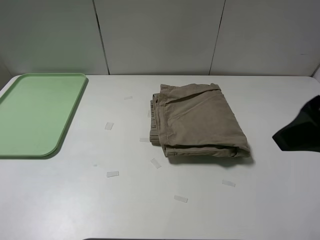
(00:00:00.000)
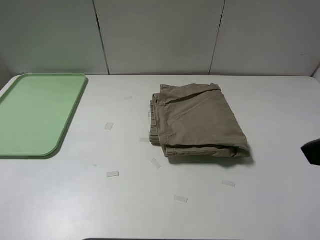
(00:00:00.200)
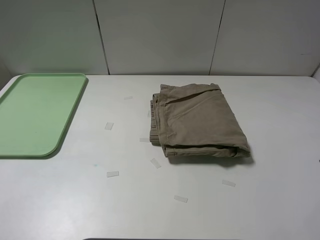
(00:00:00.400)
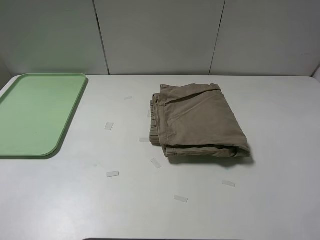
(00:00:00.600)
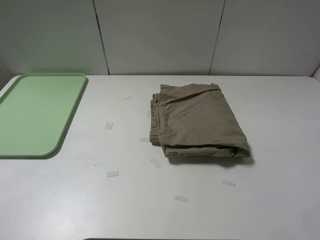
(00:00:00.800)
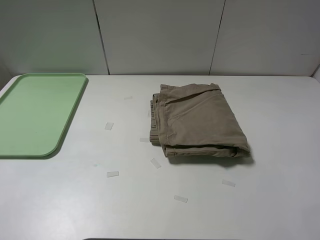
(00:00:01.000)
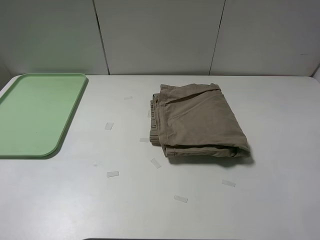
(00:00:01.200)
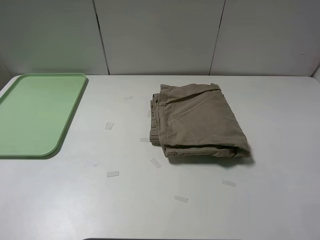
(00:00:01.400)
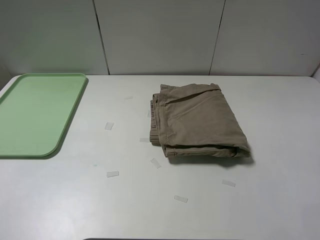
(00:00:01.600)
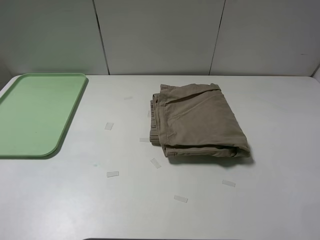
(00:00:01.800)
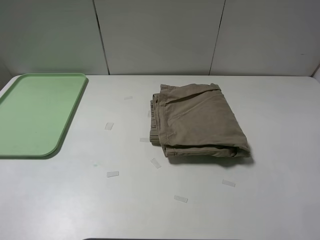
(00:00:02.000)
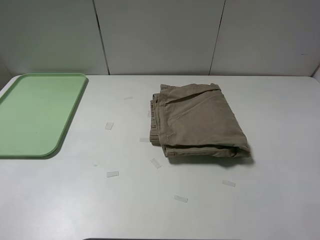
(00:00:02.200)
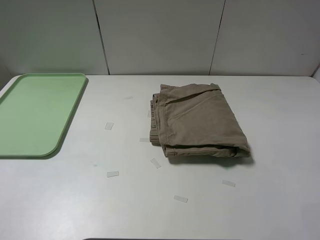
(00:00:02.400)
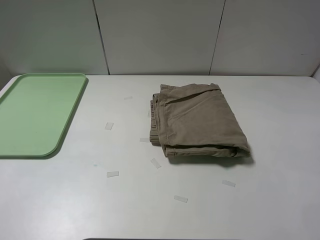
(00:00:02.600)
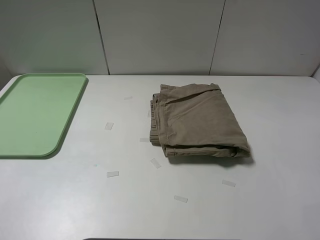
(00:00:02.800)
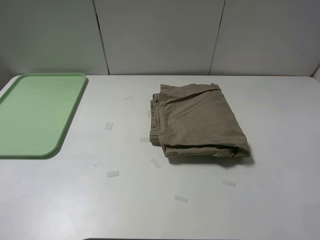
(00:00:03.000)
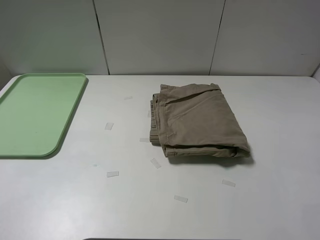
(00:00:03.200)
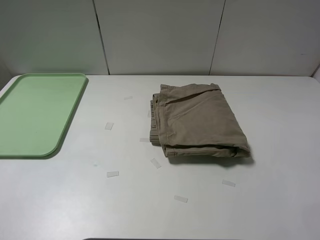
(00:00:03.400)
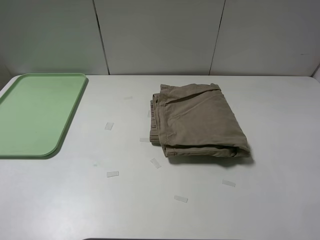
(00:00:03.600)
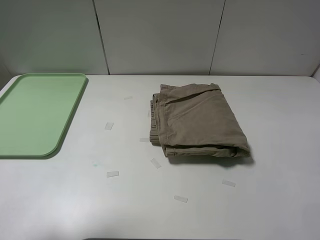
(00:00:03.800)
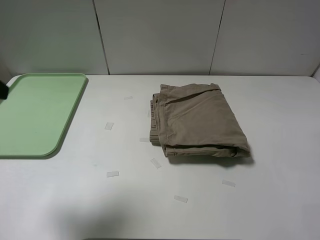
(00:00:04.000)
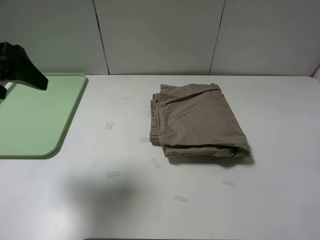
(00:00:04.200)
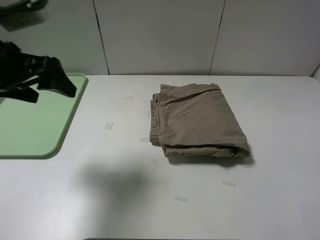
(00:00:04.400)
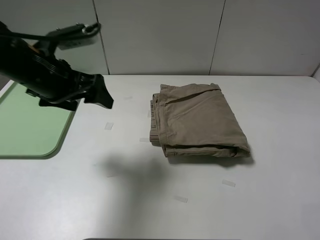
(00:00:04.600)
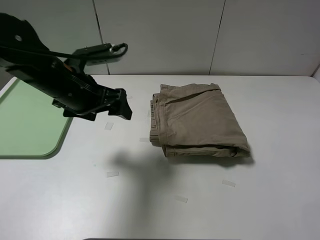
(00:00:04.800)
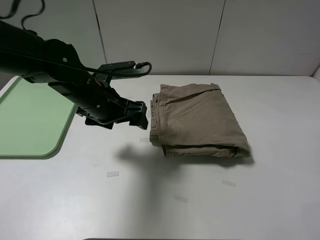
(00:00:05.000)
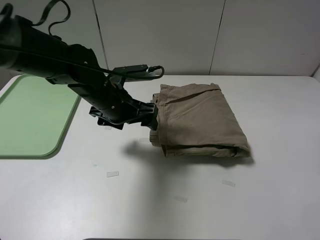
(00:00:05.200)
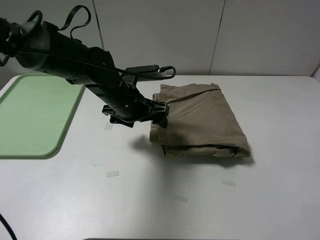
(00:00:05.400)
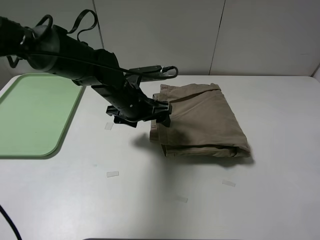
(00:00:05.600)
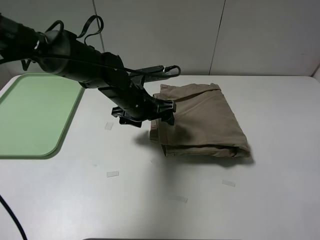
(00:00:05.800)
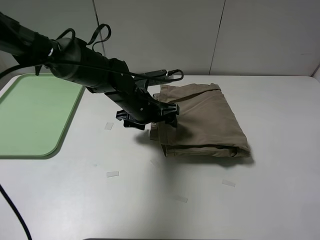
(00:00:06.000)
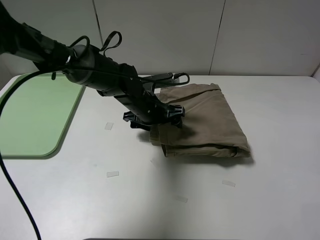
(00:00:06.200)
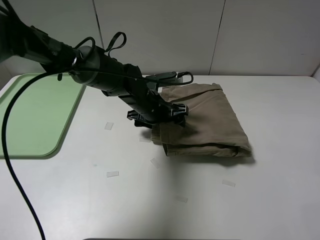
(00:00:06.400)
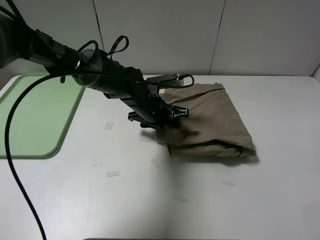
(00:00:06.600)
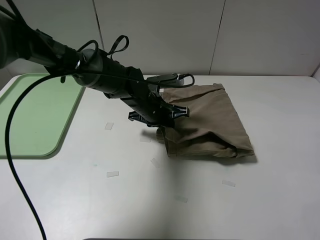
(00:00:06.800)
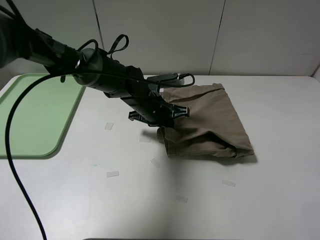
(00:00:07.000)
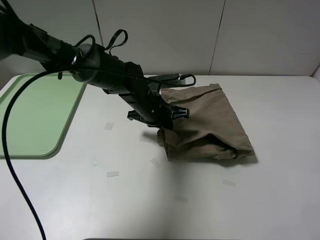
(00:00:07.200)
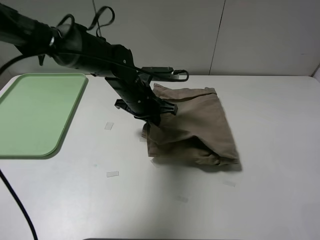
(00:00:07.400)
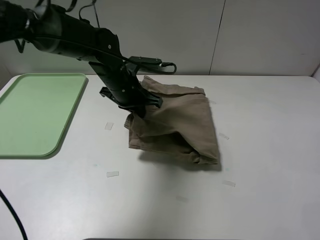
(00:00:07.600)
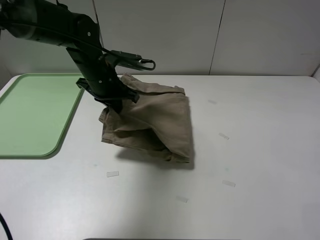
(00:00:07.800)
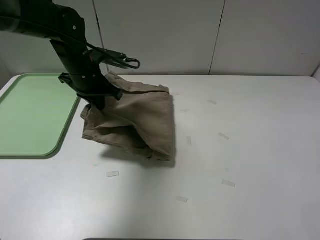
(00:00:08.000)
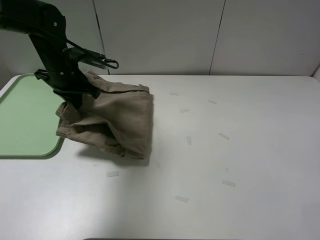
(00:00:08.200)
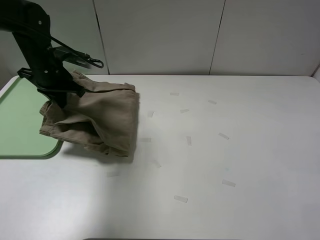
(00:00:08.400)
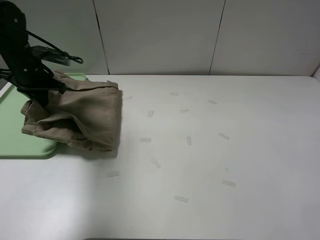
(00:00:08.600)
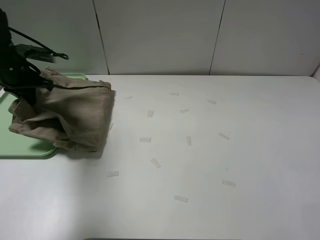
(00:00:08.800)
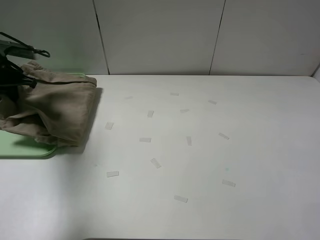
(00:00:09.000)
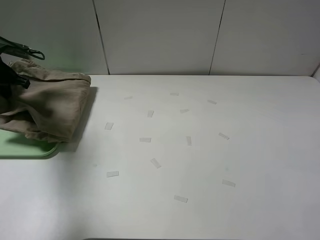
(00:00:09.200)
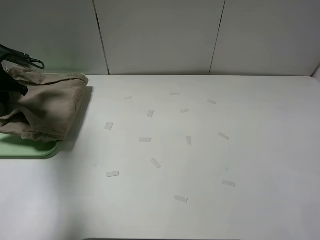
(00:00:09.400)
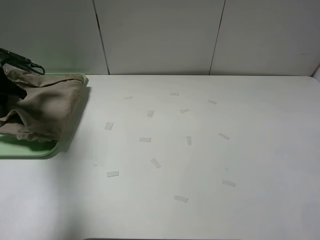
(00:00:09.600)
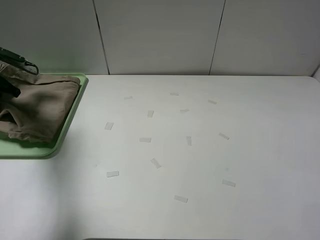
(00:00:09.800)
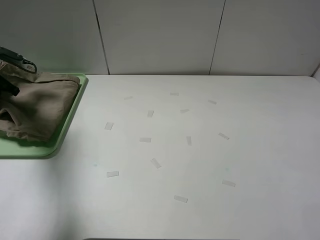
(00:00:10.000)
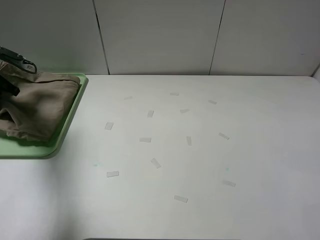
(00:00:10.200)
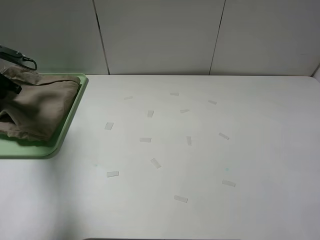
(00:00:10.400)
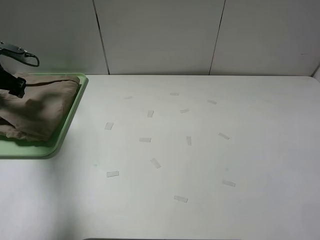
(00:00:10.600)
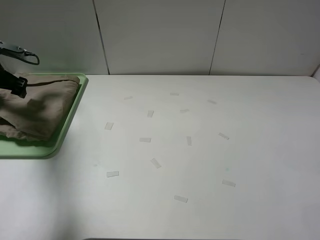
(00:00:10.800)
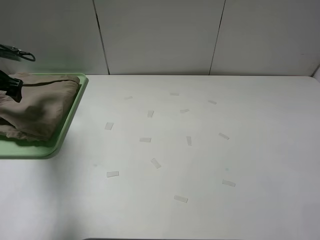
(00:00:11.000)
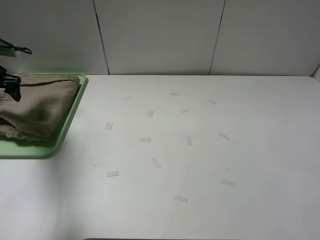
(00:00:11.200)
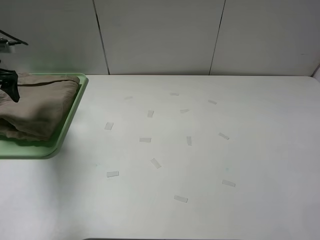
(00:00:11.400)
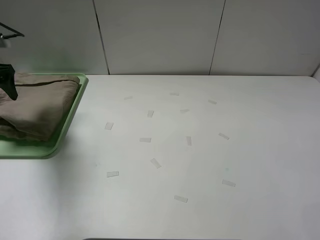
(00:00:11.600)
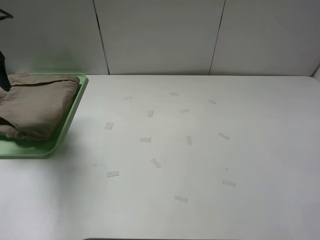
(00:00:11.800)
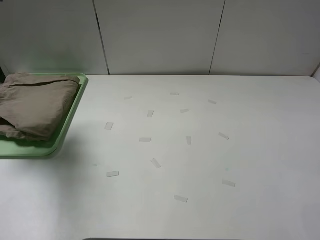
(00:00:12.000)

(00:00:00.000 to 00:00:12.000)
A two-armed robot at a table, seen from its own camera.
Task of the whole recording: fold the khaki jeans in half with two grippers, then fold them in half again, and use the left claw to place the folded fold khaki jeans on the tray.
Step, 00:00:00.000 - 00:00:06.800: Grasp the khaki trousers with the left gripper.
Step, 00:00:07.000 - 00:00:10.800: Place the folded khaki trousers on the green tray with the left gripper.
00:00:00.000 - 00:00:01.600: The right gripper moves backward, to the right and downward, some 15 cm.
00:00:01.600 - 00:00:03.000: Neither gripper changes place.
00:00:03.000 - 00:00:04.400: The left gripper is displaced forward by some 25 cm.
00:00:04.400 - 00:00:06.000: The left gripper is displaced to the right, downward and forward by roughly 25 cm.
00:00:06.000 - 00:00:07.600: The left gripper changes place by some 5 cm, and closes its fingers.
00:00:07.600 - 00:00:09.000: The left gripper moves to the left, some 30 cm.
00:00:09.000 - 00:00:10.400: The left gripper opens up.
00:00:10.400 - 00:00:12.000: The left gripper is displaced upward and backward by some 15 cm, and opens.

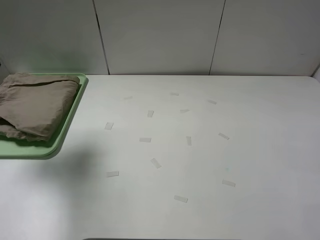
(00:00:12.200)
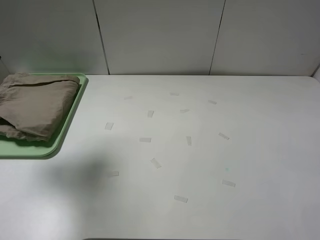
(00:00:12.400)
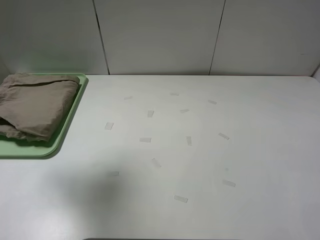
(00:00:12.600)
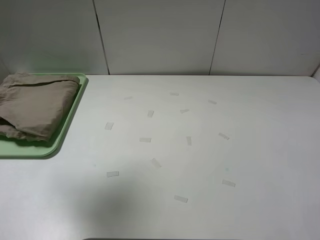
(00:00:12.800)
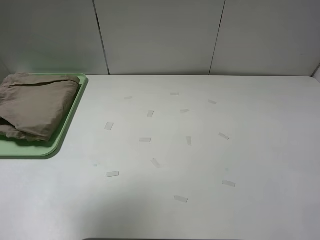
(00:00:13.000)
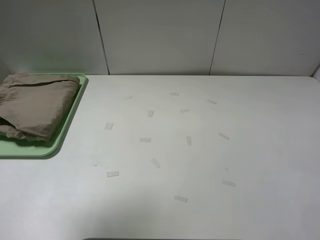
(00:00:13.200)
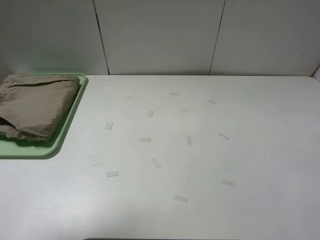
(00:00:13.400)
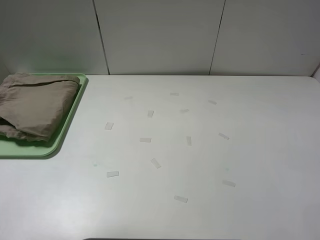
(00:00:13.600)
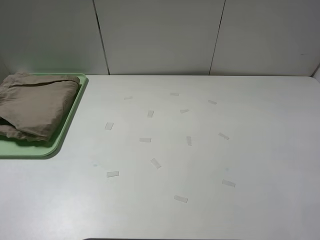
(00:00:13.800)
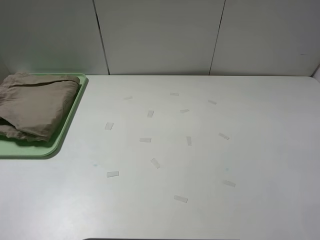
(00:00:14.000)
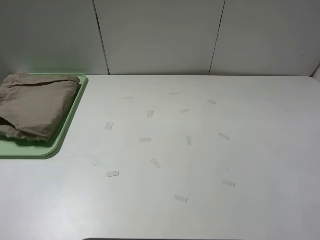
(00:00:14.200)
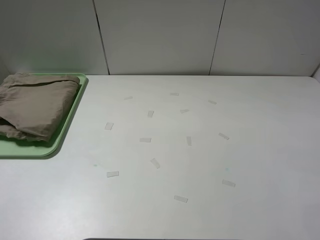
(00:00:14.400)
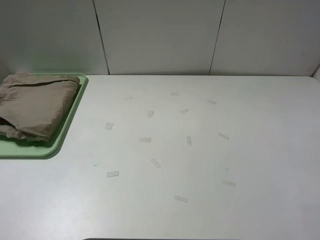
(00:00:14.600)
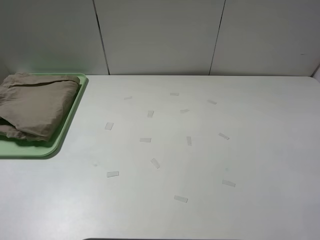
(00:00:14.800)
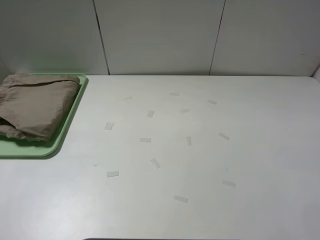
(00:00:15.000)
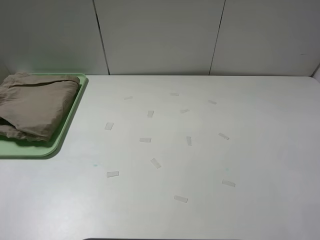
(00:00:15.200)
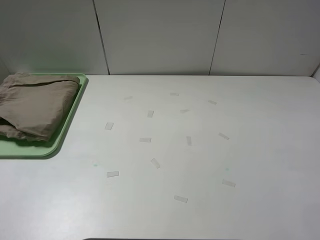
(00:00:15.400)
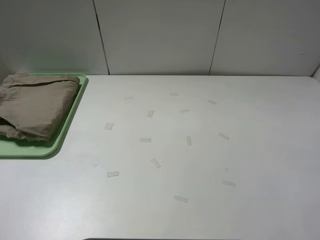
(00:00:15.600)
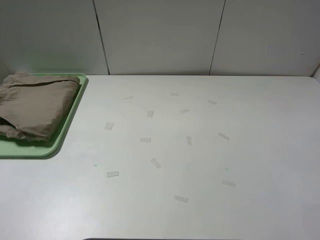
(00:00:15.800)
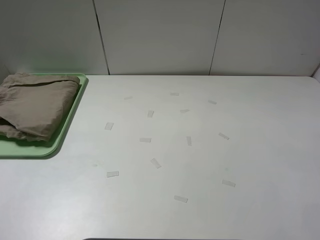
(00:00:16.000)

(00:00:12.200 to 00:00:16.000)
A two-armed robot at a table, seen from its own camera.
Task of the whole recording: fold the khaki jeans in half with two grippers, then fold them in half again, and use the left claw to place the folded fold khaki jeans on the tray.
00:00:12.200 - 00:00:13.400: The left gripper goes approximately 15 cm backward.
00:00:13.400 - 00:00:14.800: The left gripper travels backward and downward by approximately 15 cm.
